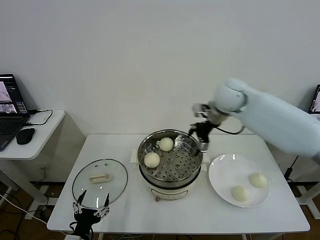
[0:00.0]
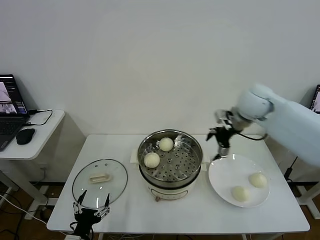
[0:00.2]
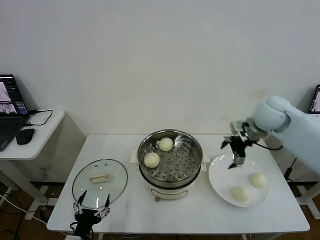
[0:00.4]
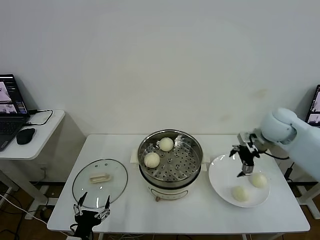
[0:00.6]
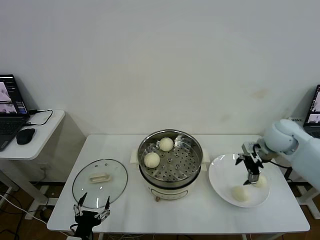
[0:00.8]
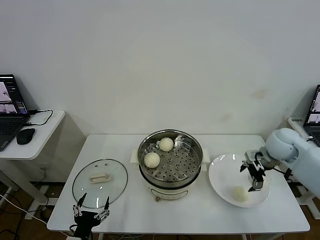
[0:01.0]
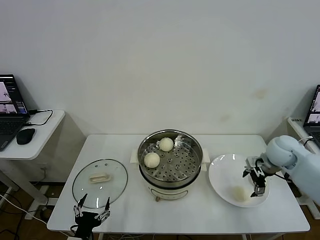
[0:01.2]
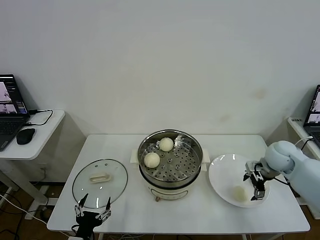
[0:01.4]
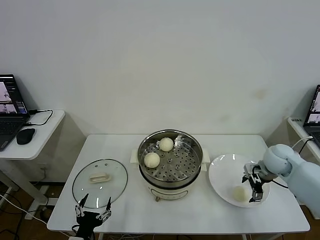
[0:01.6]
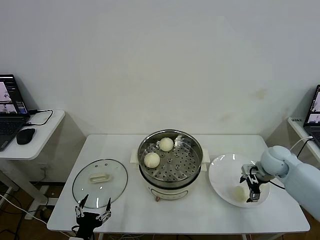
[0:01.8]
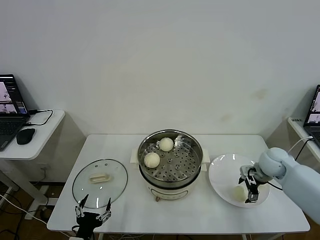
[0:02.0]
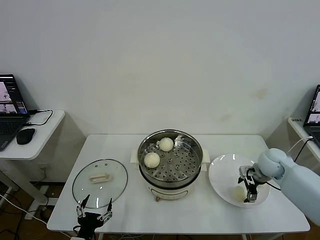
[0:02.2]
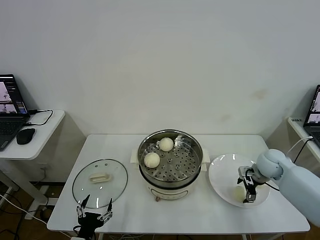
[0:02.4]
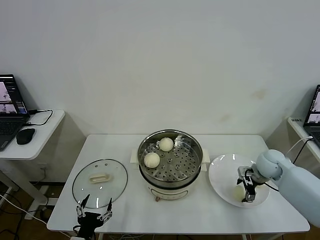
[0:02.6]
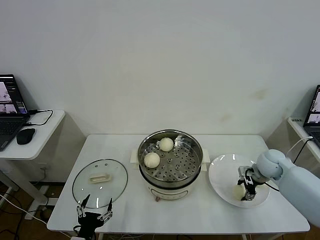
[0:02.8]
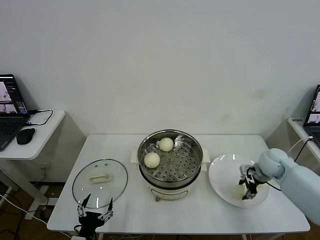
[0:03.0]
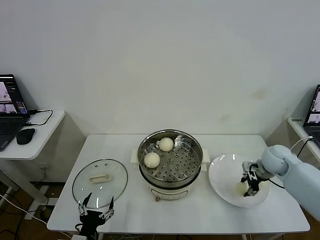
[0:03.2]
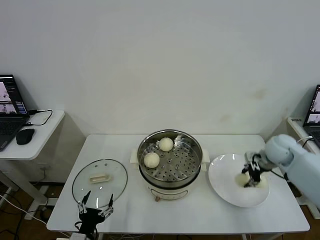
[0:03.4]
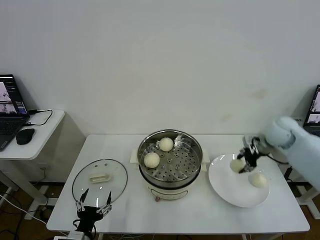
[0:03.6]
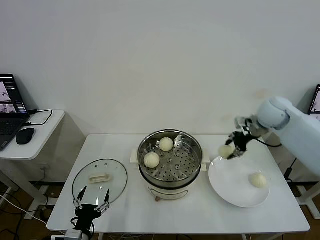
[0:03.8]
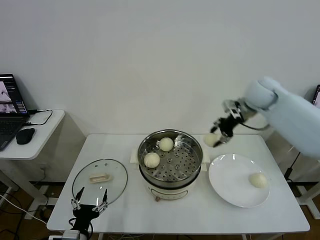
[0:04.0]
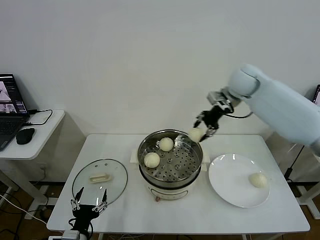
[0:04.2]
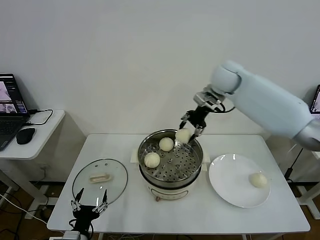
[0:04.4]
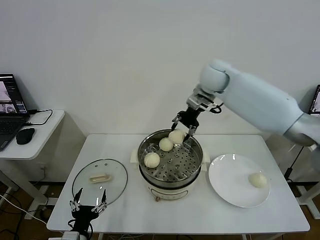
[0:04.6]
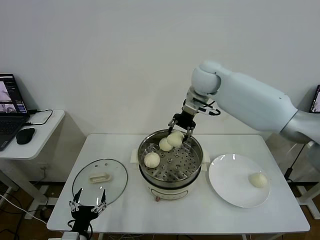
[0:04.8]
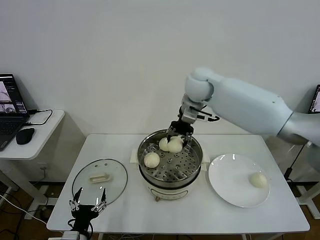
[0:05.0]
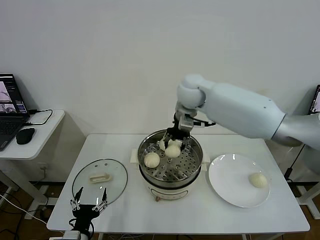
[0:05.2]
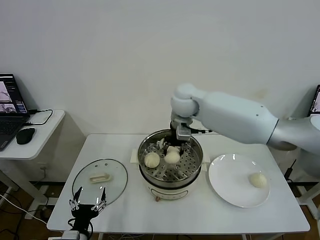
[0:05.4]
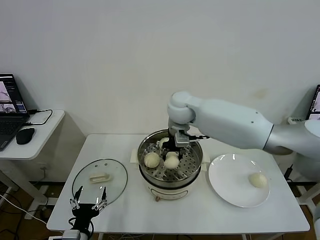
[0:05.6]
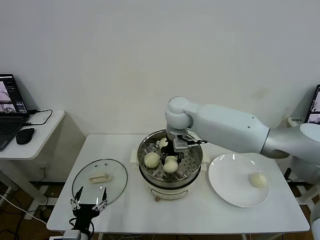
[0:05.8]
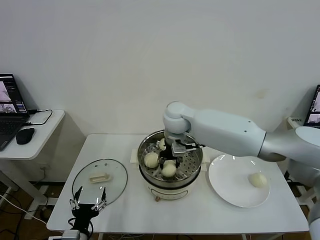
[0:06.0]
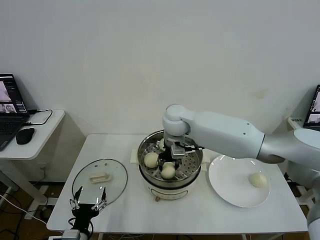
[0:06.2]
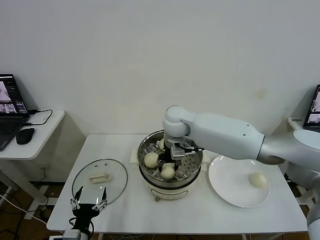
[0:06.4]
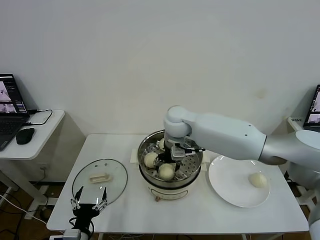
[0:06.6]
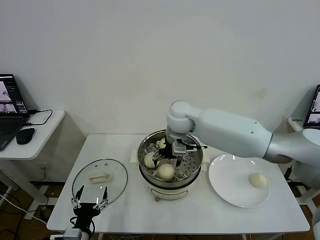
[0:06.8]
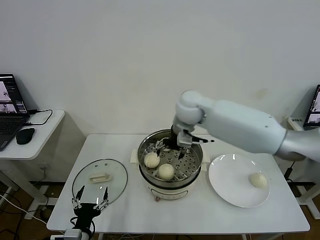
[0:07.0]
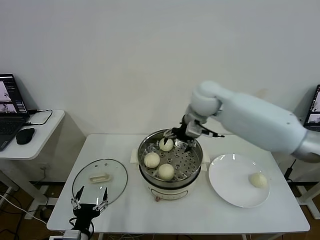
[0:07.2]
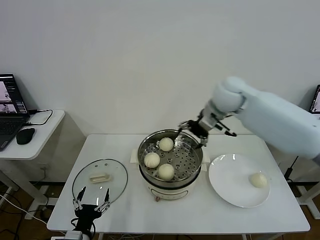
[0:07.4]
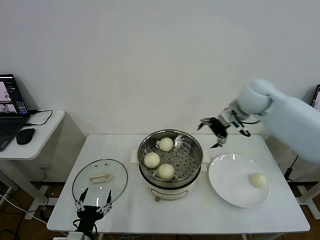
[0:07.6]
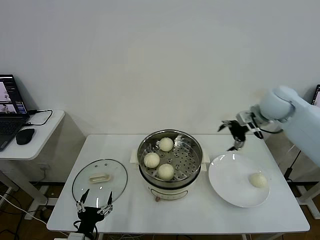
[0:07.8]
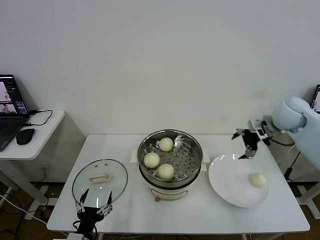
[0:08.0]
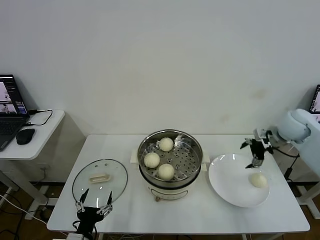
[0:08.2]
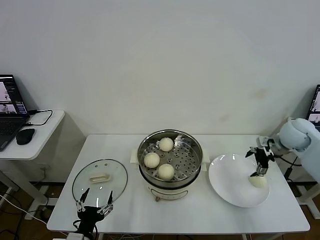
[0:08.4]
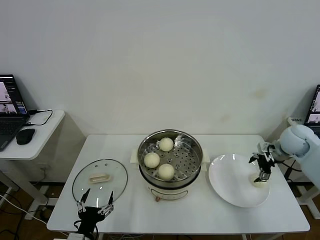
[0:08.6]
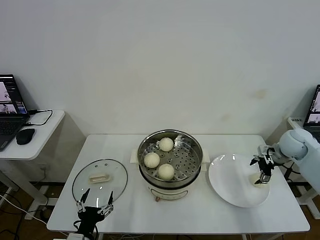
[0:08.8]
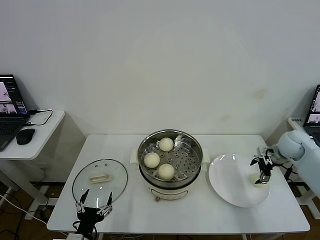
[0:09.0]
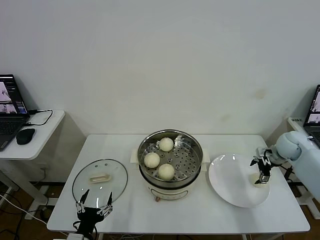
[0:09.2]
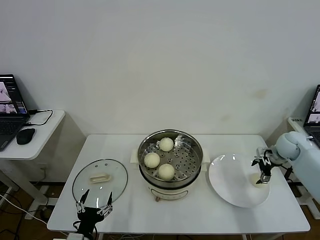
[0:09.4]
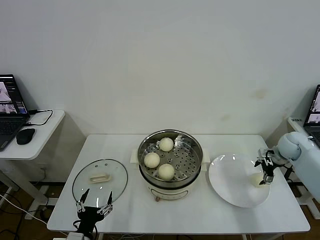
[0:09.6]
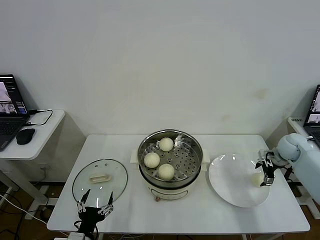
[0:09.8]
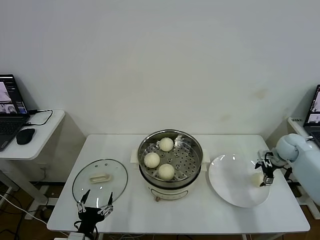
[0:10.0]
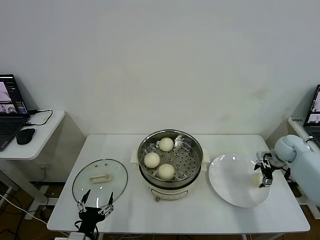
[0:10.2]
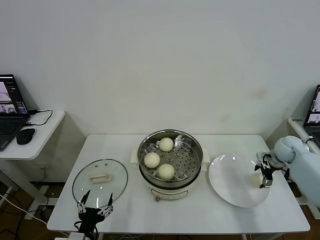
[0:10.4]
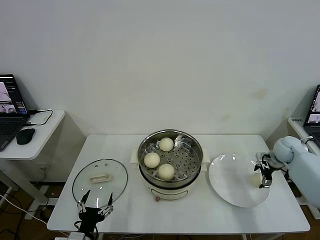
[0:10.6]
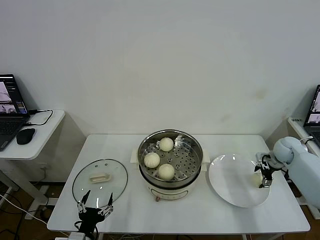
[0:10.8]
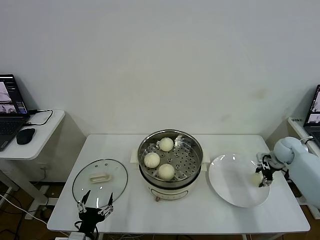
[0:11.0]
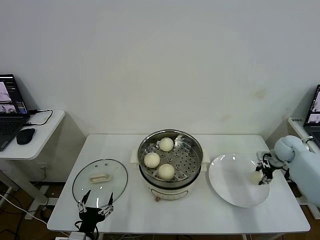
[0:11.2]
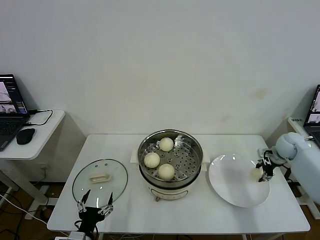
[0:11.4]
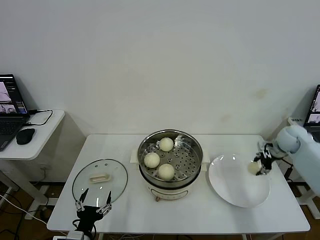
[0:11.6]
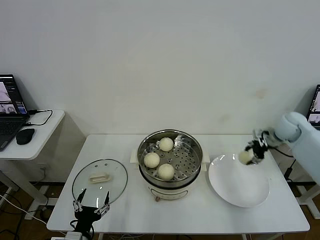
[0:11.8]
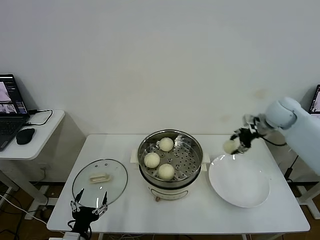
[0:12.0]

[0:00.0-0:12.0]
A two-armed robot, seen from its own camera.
Task of the whole recording: take steamed baozi put them in steamer then cover it.
Step, 0:00.0 to 0:02.8: Grasp the baozi in the plate with right gripper.
Step, 0:03.0 to 0:06.6: Place the baozi on the steamer with right gripper.
Step, 0:06.8 to 0:11.2: Grasp the baozi in the plate with right gripper.
0:00.0 to 0:01.6: The right gripper goes roughly 25 cm downward, to the right and backward.
0:01.6 to 0:03.0: The right gripper closes.
0:03.0 to 0:04.4: The right gripper is displaced upward, to the left and forward by some 35 cm.
0:04.4 to 0:06.0: The right gripper travels to the left, downward and backward by approximately 20 cm.
0:06.0 to 0:07.6: The right gripper goes about 25 cm to the right, and opens up.
0:07.6 to 0:09.0: The right gripper travels downward and to the right by approximately 25 cm.
0:09.0 to 0:10.4: The right gripper shifts by about 5 cm.
0:10.4 to 0:12.0: The right gripper heads upward and to the left, covering about 20 cm, and closes its fingers.

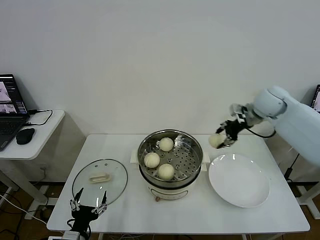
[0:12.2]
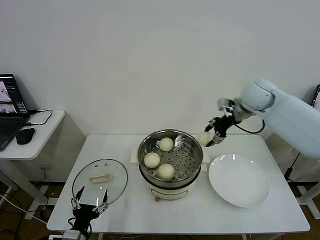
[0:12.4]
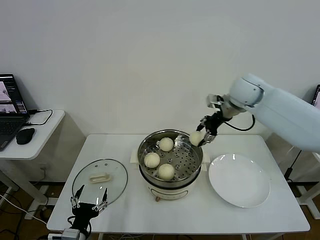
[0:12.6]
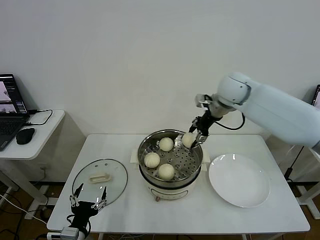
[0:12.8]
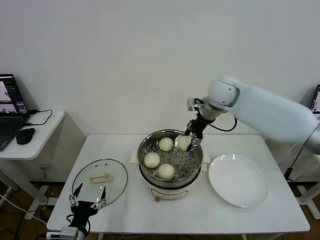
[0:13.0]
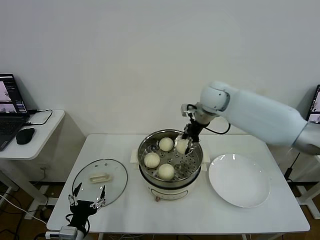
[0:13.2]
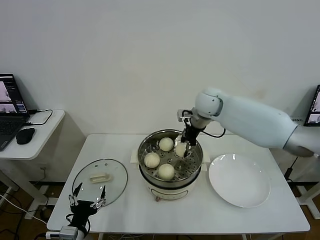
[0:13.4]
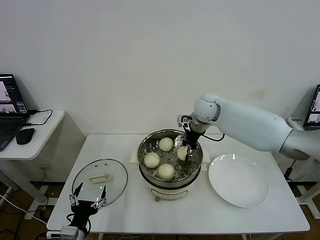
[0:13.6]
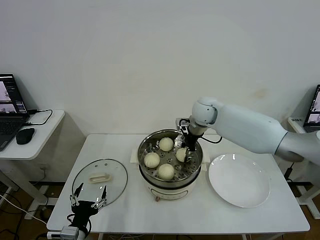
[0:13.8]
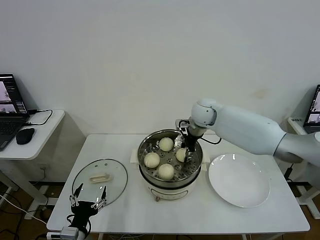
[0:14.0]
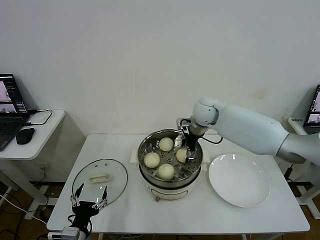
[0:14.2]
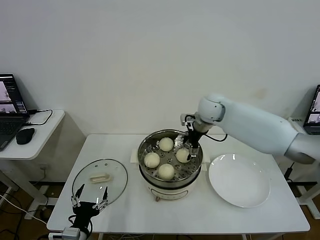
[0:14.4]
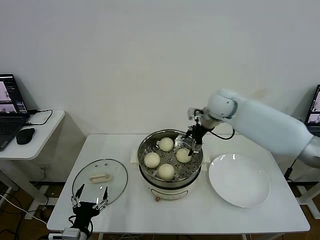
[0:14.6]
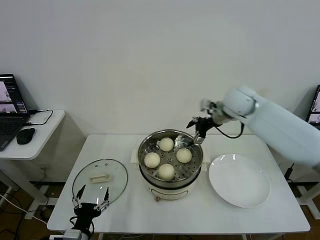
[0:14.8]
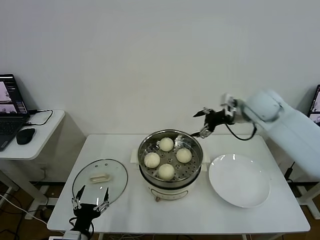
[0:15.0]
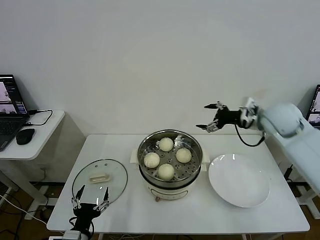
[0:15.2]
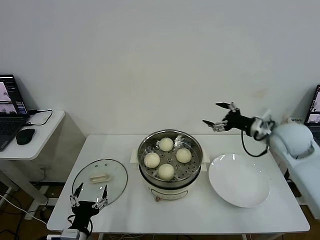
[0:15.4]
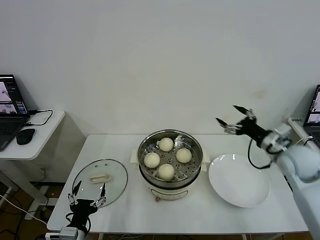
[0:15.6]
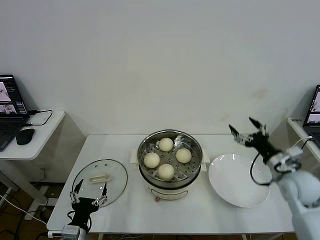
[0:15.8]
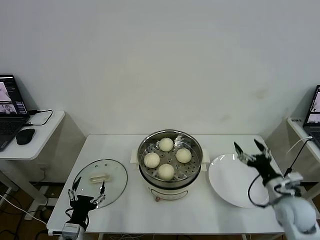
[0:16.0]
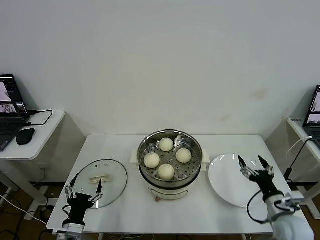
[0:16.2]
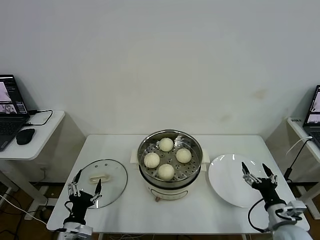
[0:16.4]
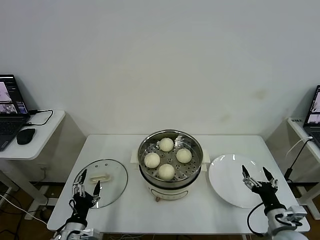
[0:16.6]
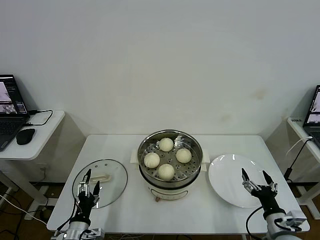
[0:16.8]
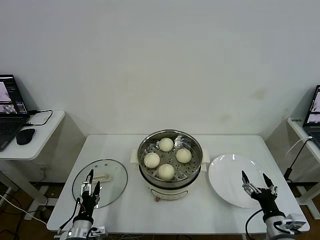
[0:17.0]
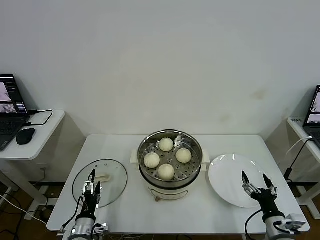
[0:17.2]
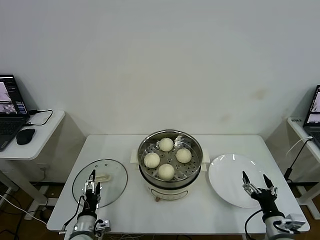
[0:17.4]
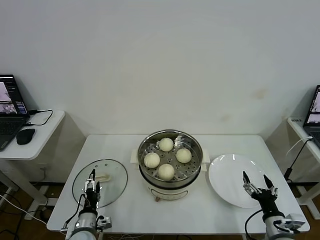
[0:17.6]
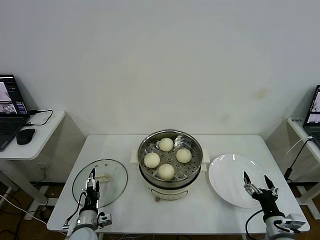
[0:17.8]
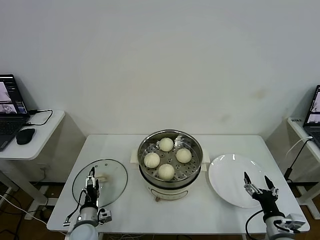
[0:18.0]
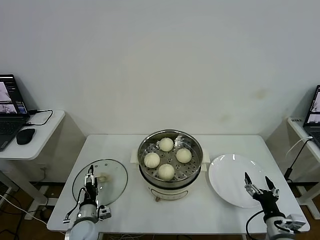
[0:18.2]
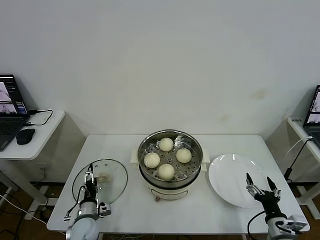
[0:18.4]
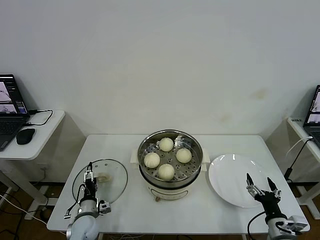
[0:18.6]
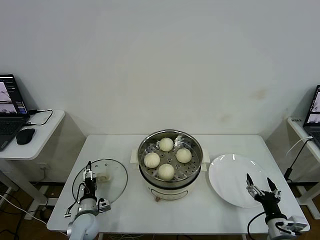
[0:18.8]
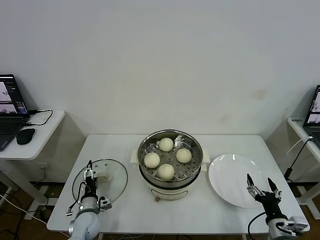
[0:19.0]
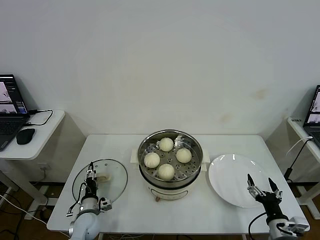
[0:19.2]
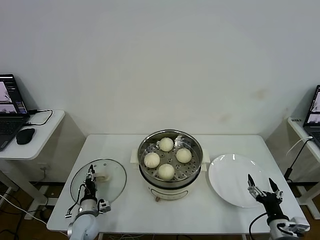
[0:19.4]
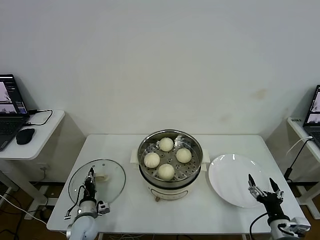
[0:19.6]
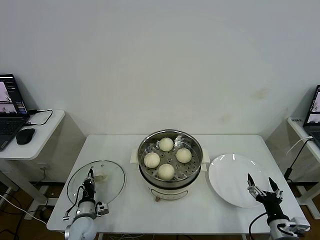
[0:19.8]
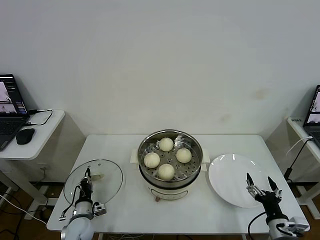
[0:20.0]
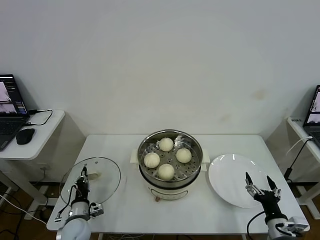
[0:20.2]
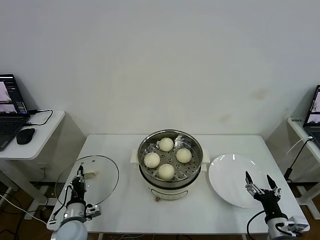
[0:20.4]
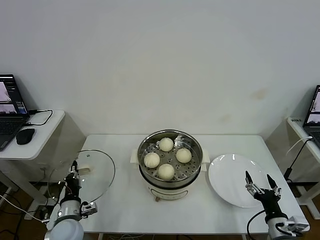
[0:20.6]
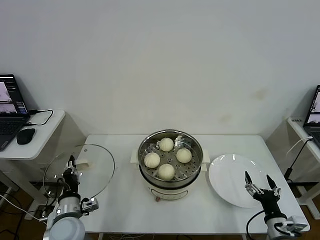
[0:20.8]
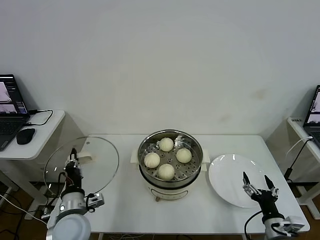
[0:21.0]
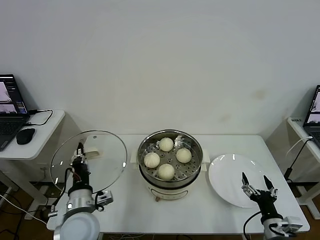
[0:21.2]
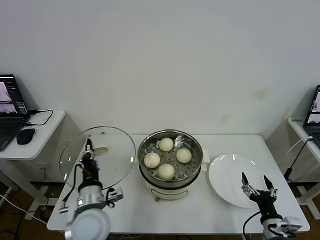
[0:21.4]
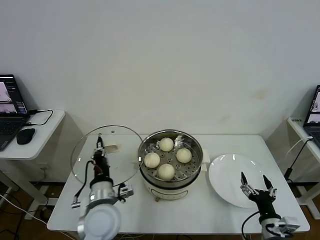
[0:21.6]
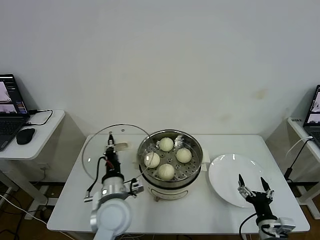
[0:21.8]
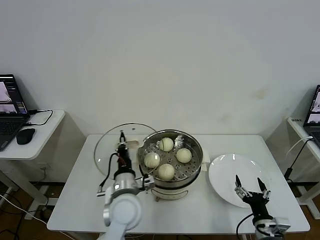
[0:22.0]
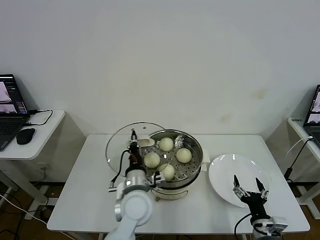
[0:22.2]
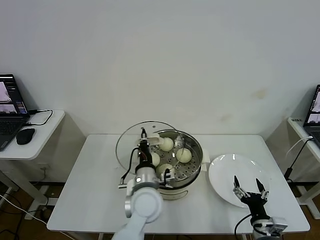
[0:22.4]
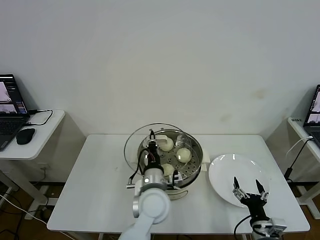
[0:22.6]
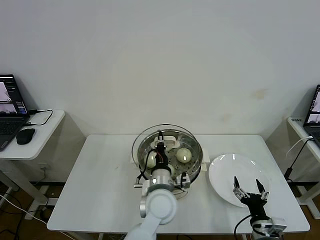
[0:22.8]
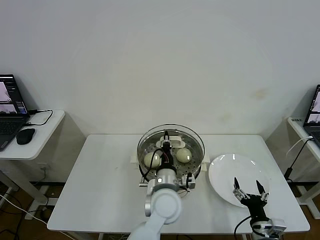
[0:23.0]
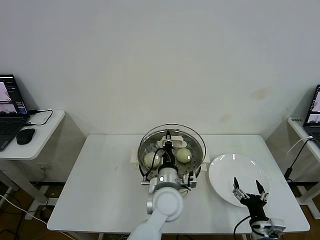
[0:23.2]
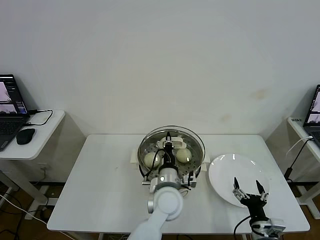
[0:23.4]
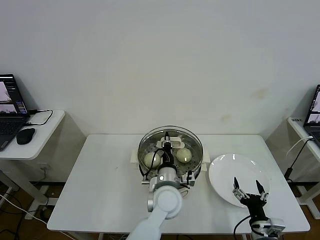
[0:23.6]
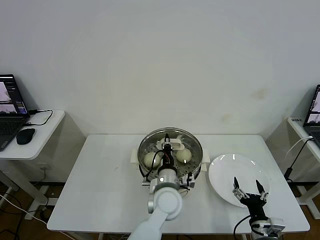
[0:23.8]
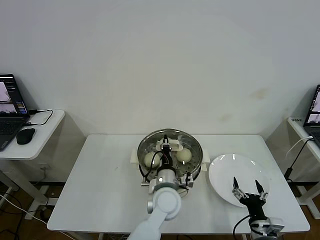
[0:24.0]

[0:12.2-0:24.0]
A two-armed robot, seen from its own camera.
Task of the whole recording: take steamed baozi put them in steamer then cover it.
Step, 0:12.2 to 0:14.4: Place the baozi on the steamer with right gripper.
Step, 0:14.6 to 0:20.0: Grasp the pot lid with left gripper.
0:12.2 to 0:13.6: The right gripper shifts approximately 15 cm to the left.
0:13.6 to 0:15.2: The right gripper heads to the right and backward, covering roughly 20 cm, and opens up.
0:15.2 to 0:16.6: The left gripper ends up roughly 5 cm from where it was. The right gripper moves backward and downward, some 35 cm.
0:16.6 to 0:18.2: The left gripper travels forward and downward by roughly 10 cm.
0:18.2 to 0:19.6: The left gripper closes up.
0:19.6 to 0:21.0: The left gripper shifts about 20 cm upward.
0:21.0 to 0:22.6: The left gripper moves to the right, some 25 cm.
0:22.6 to 0:24.0: The left gripper ends up some 5 cm from where it was.
